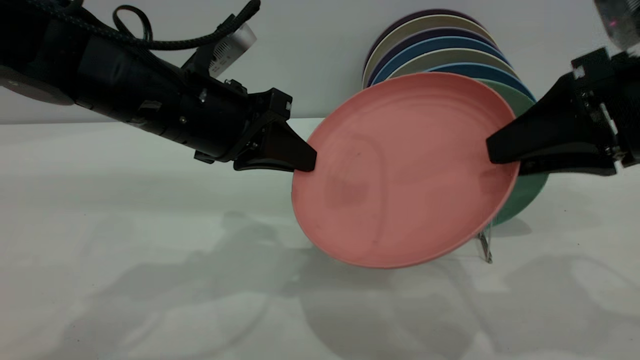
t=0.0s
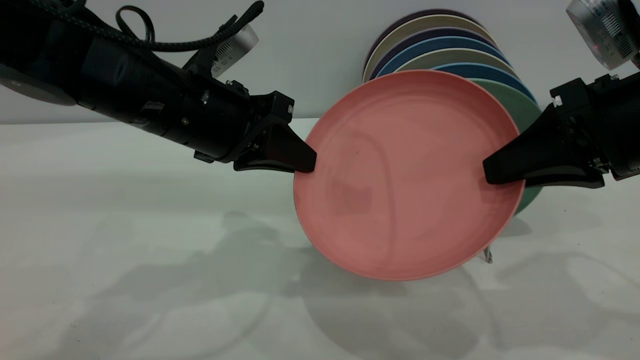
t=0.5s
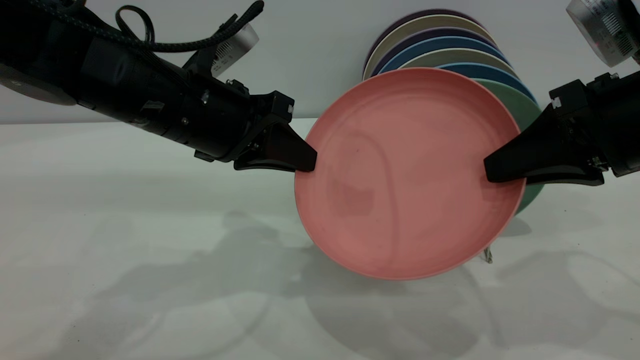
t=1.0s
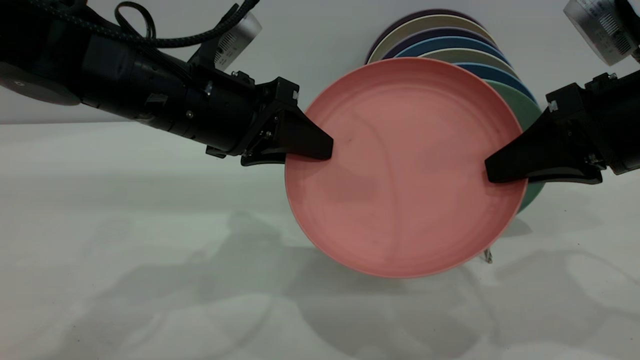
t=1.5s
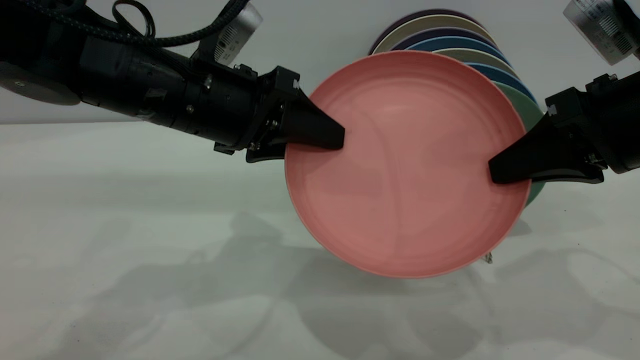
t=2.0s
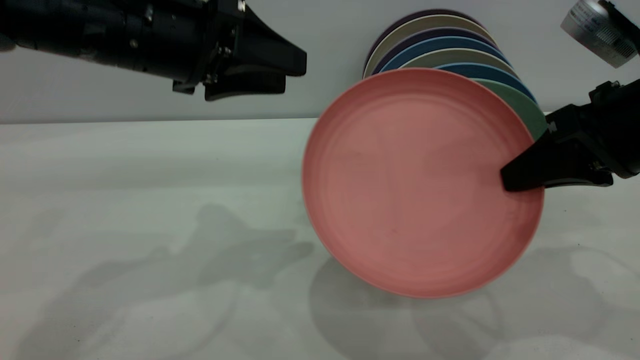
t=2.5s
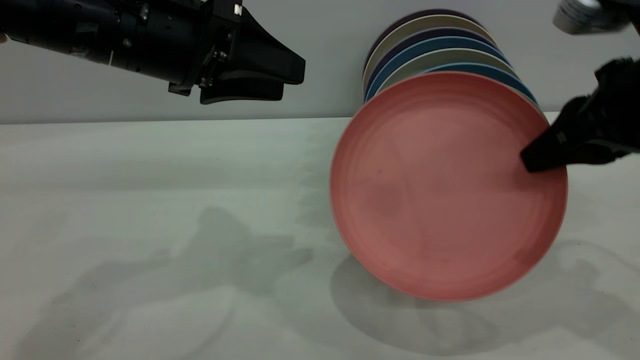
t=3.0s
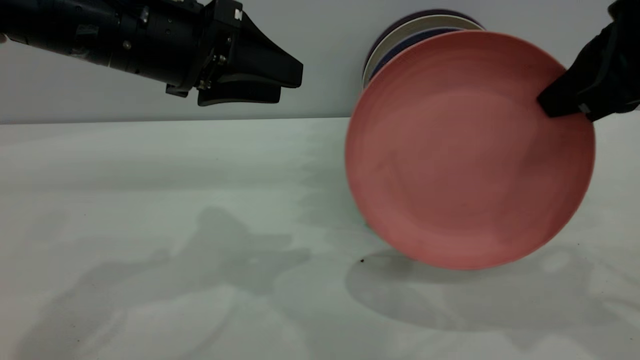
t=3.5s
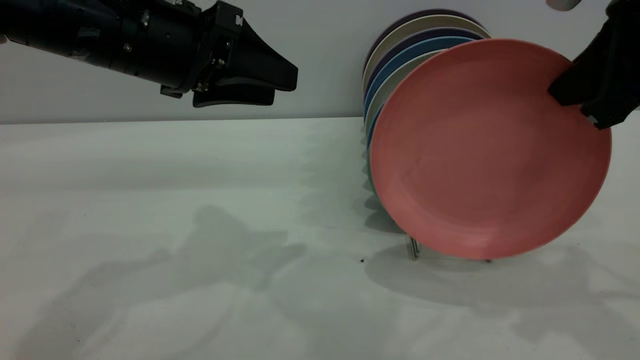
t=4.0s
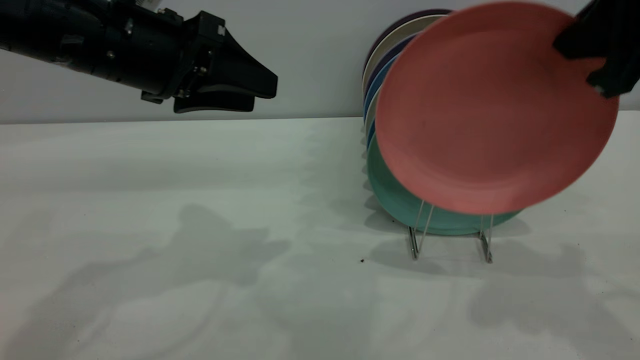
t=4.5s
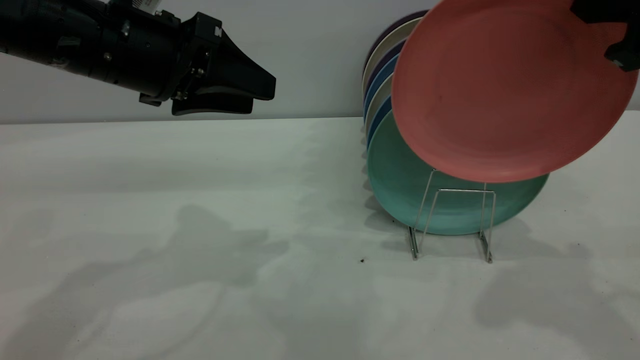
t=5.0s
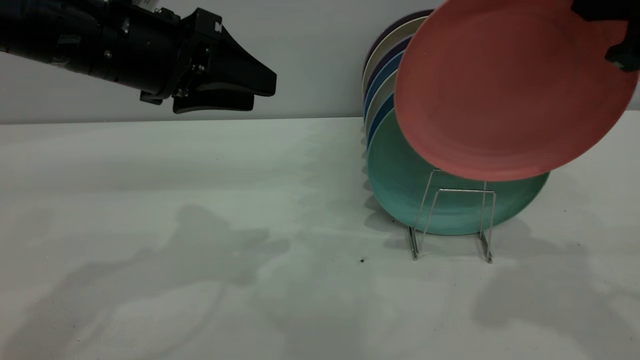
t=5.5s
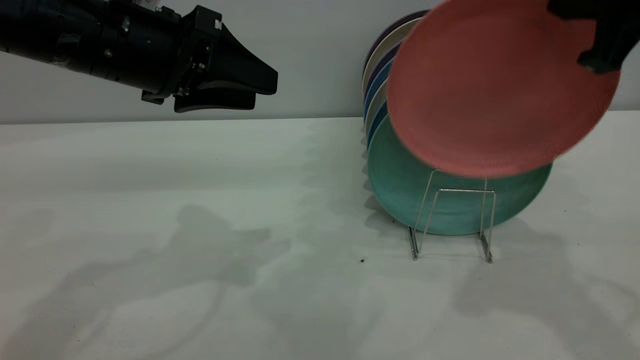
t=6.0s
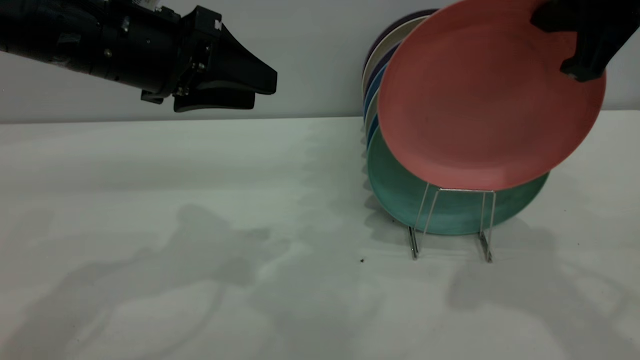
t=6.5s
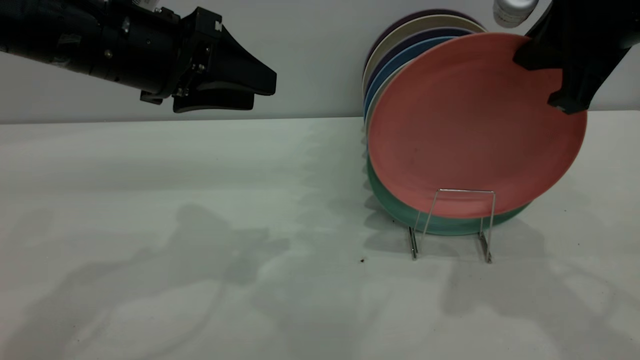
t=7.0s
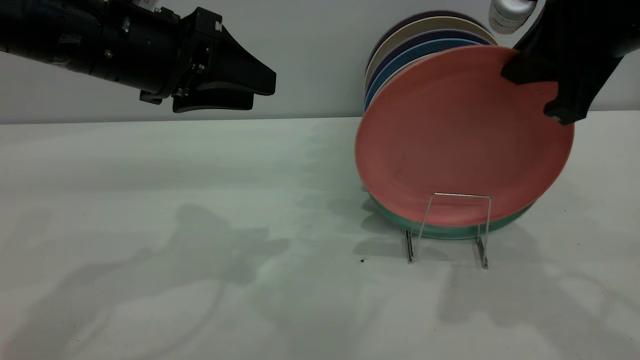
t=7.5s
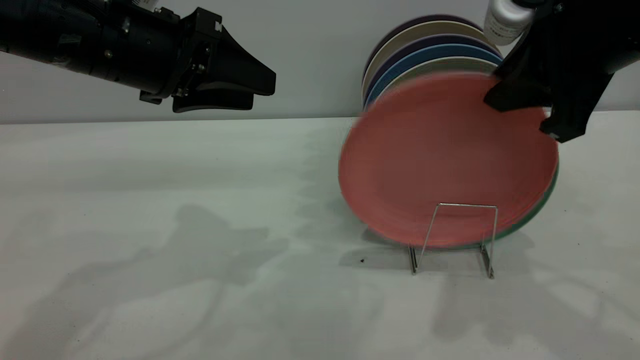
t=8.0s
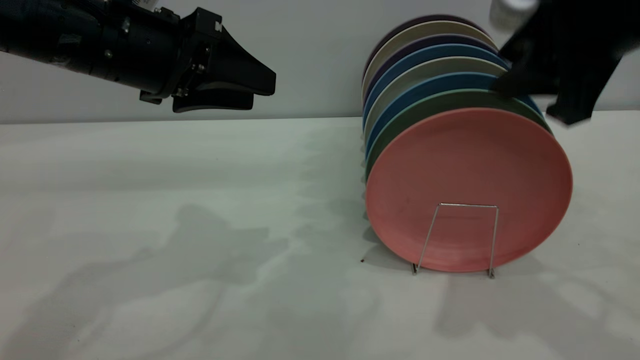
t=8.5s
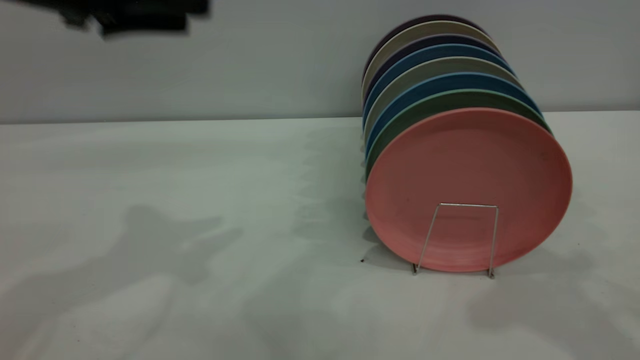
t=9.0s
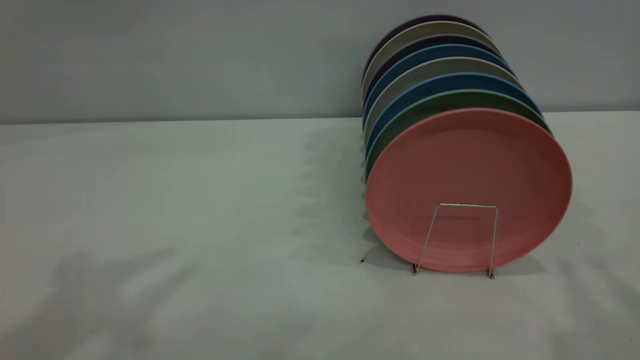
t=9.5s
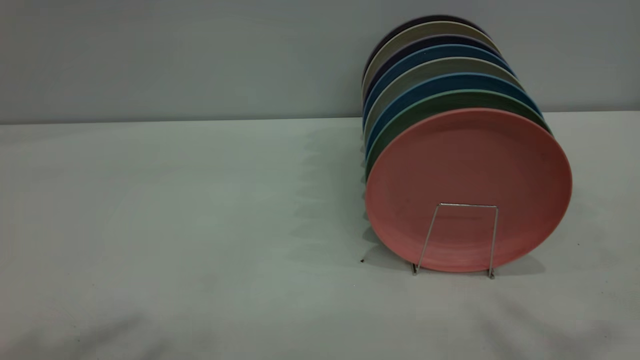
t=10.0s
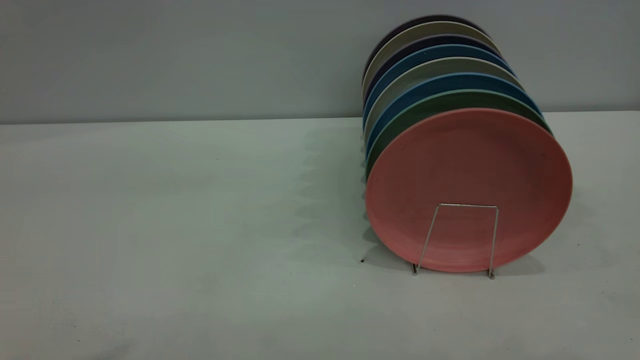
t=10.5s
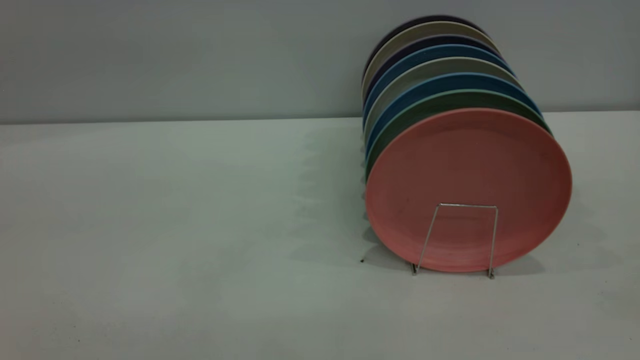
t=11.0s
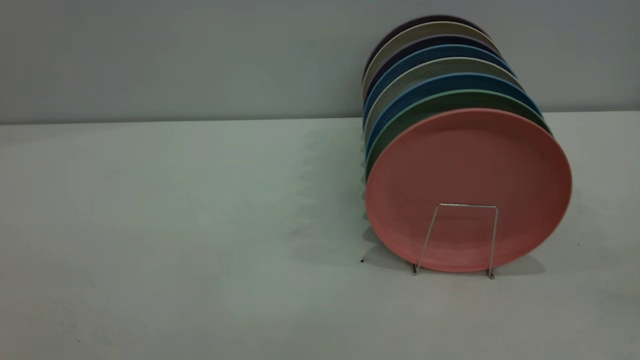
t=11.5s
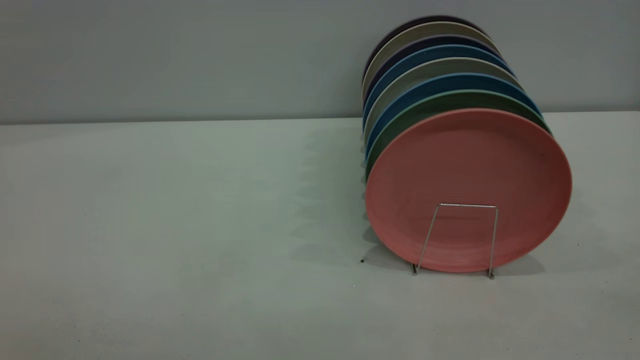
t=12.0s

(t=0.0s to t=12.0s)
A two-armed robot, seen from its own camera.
Task of the whole recording: put the plate on the plate rack.
Step, t=0.0s - t=2.0s: Pass the plate from the left gripper to the right gripper.
Step, t=3.0s - t=8.5s: Place the plate on the shelf.
t=0.0s - t=2.0s: The right gripper closes; the left gripper opens its fingers.
t=2.0s - t=4.0s: The left gripper ends up approximately 5 cm from where it was. The right gripper goes about 5 cm upward.
t=6.0s - t=8.0s: The right gripper opens its fingers.
t=8.0s - t=10.0s: Both grippers move upward and backward, roughly 25 cm.

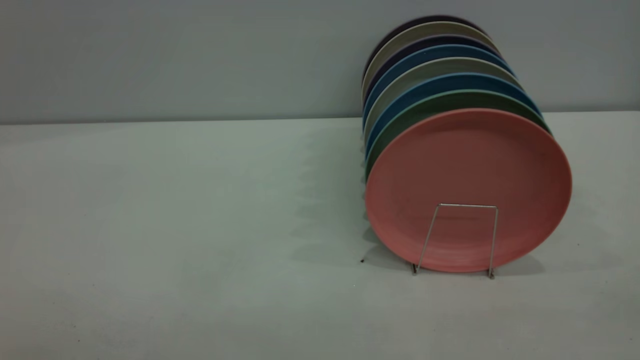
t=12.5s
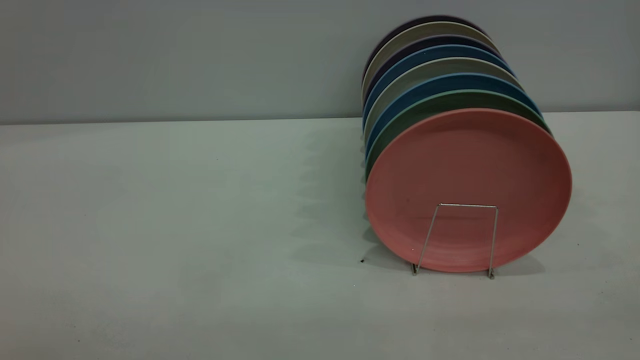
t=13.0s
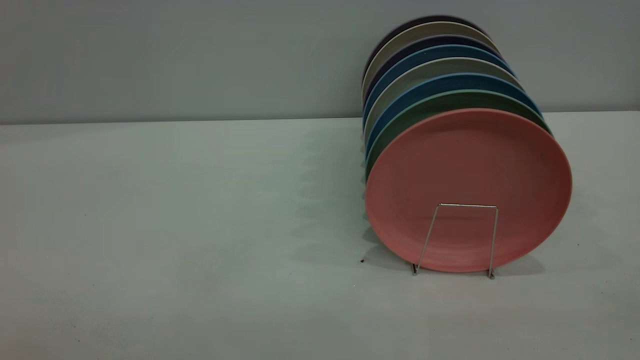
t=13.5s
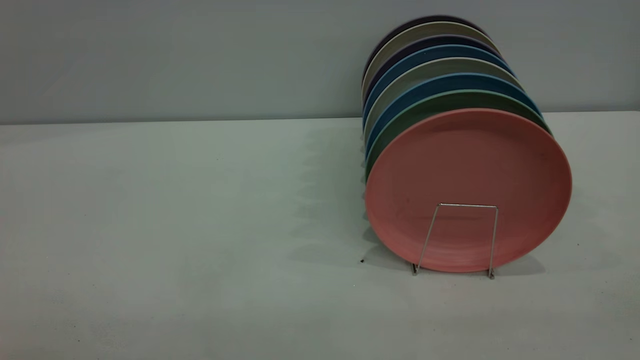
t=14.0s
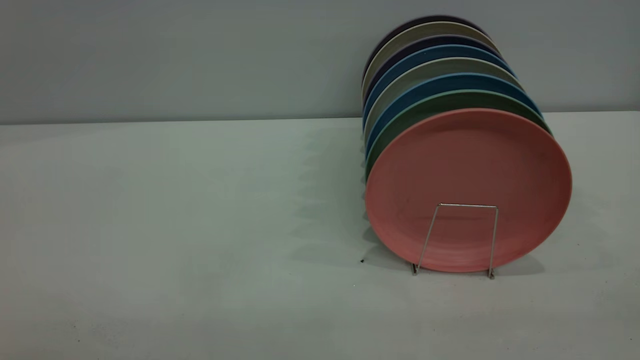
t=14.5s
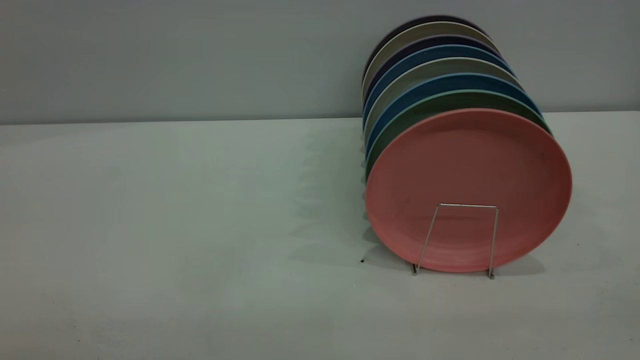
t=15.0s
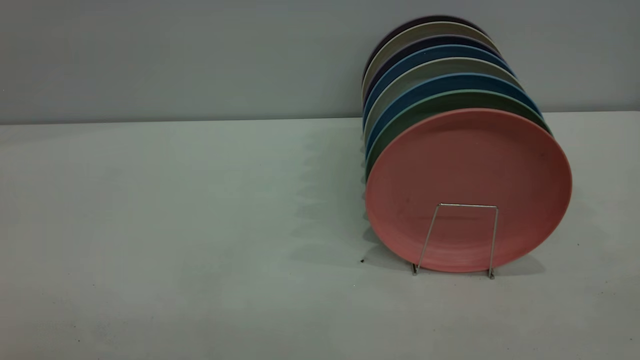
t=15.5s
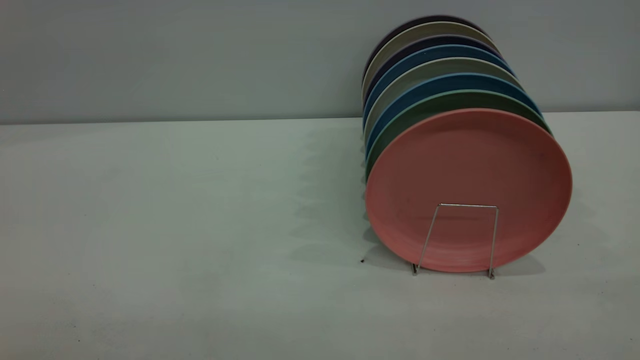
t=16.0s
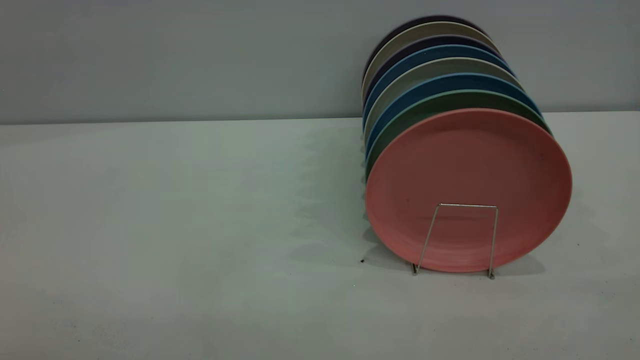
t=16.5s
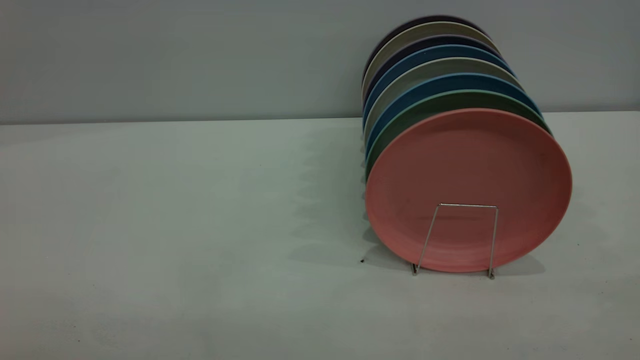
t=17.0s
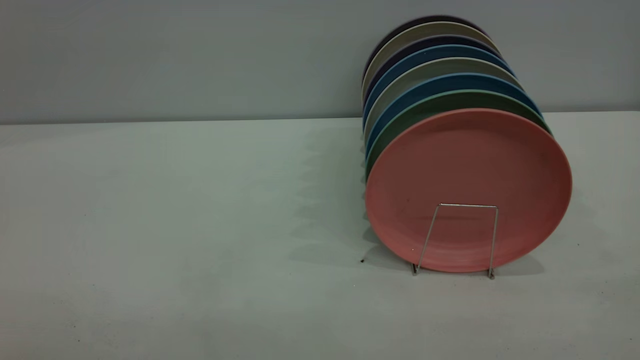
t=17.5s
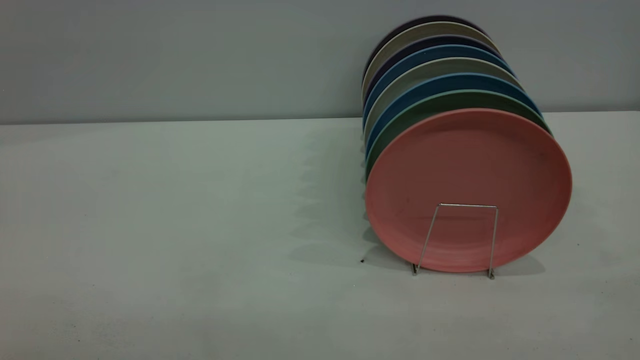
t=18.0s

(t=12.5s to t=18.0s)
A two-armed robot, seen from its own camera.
Task of the whole recording: put the plate on the plate rack.
t=16.0s - t=18.0s: The two grippers keep their place.

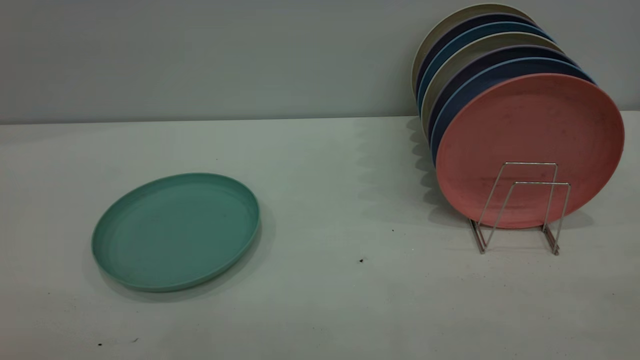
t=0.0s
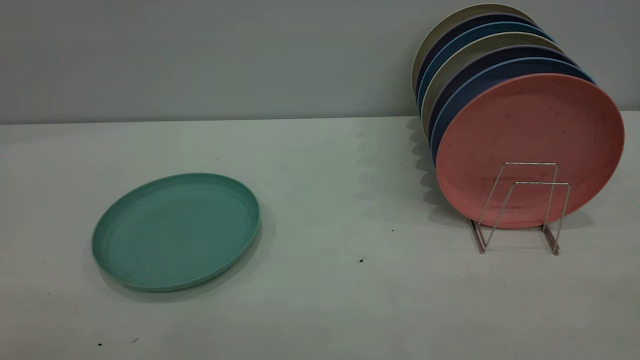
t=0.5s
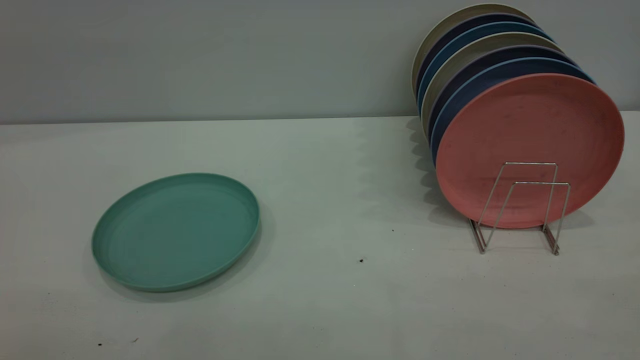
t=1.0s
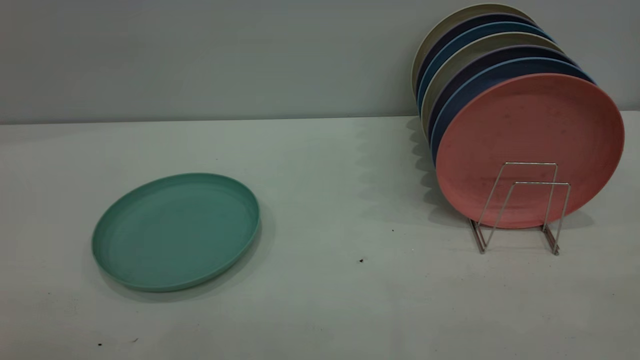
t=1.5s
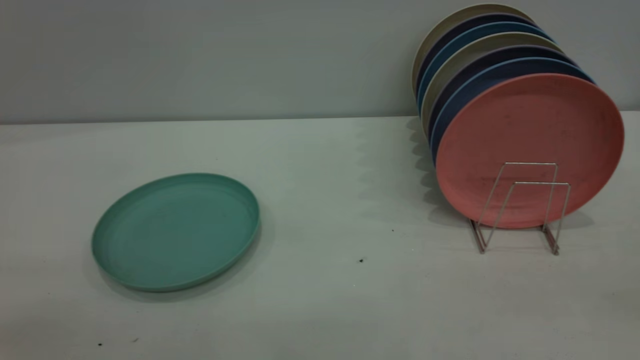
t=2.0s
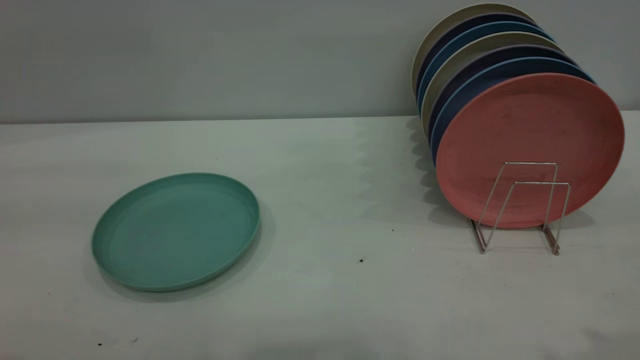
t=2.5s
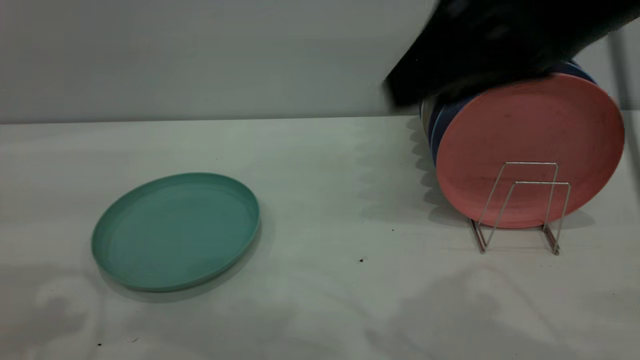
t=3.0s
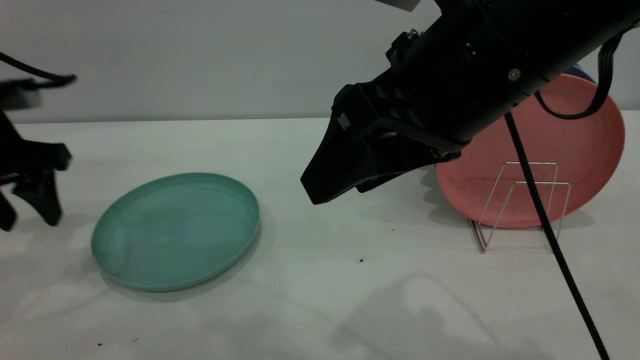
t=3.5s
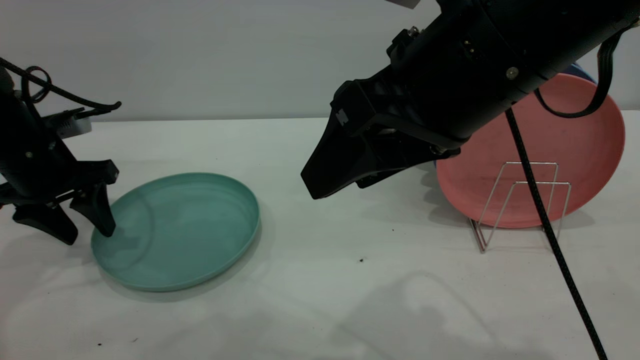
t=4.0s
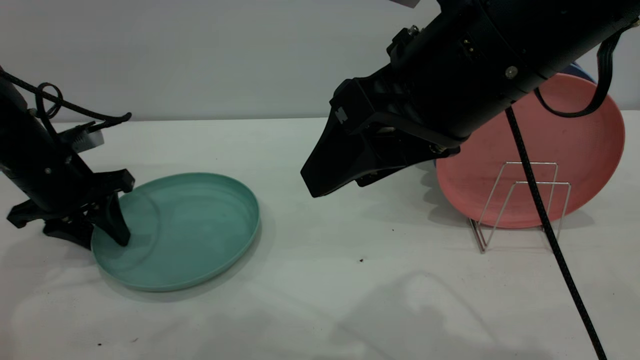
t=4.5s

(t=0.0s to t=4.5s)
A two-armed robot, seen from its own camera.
Task of the whole recording: the left gripper grasp the green plate, the left gripper pass the green plate to the right gripper, and the right gripper place the green plate on the plate rack.
t=2.0s - t=4.5s: The right gripper goes approximately 30 cm forward, to the left and downward. Meanwhile the left gripper goes some 50 cm forward and downward.
